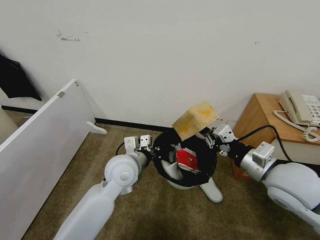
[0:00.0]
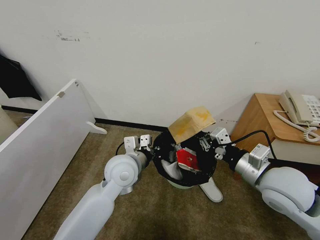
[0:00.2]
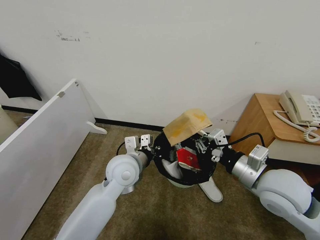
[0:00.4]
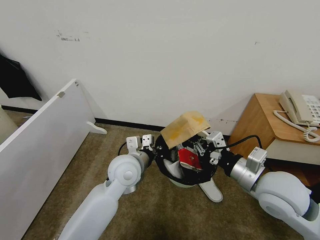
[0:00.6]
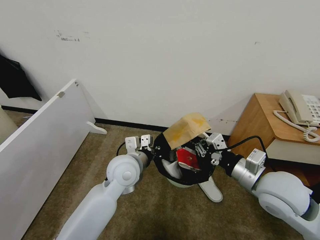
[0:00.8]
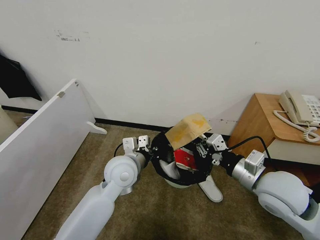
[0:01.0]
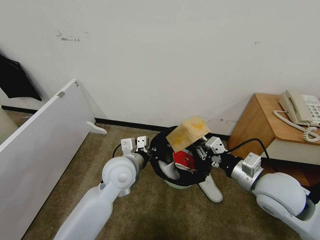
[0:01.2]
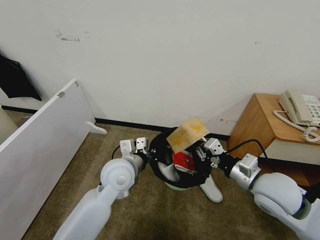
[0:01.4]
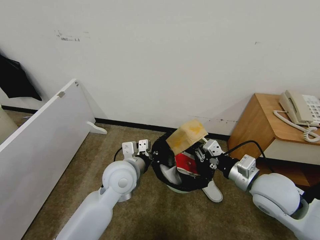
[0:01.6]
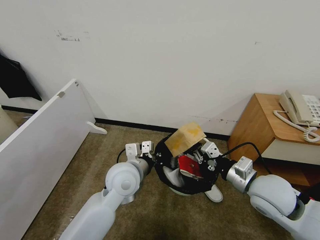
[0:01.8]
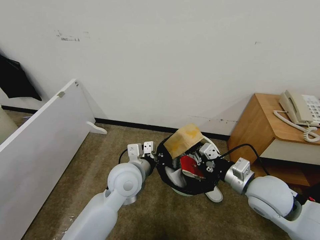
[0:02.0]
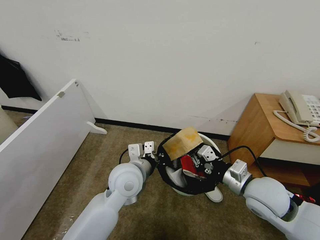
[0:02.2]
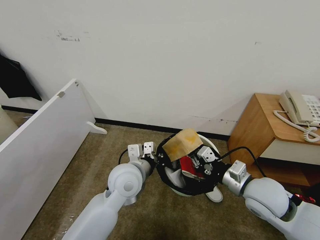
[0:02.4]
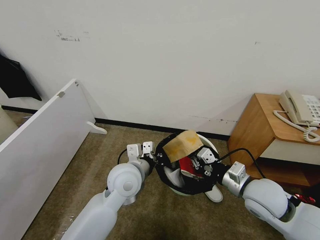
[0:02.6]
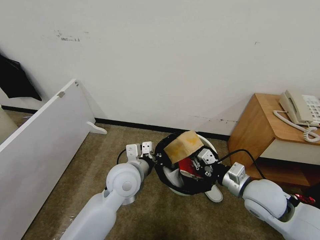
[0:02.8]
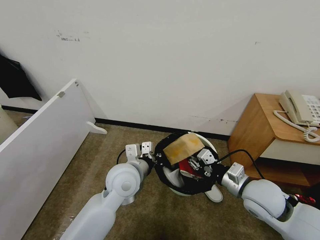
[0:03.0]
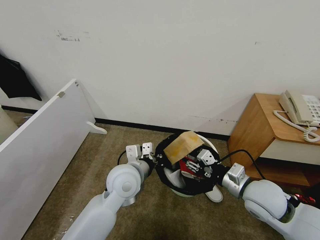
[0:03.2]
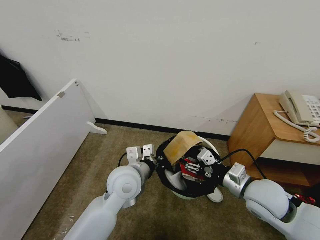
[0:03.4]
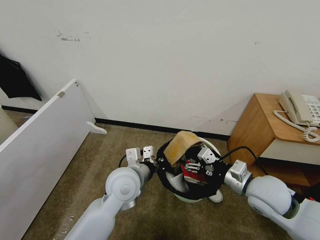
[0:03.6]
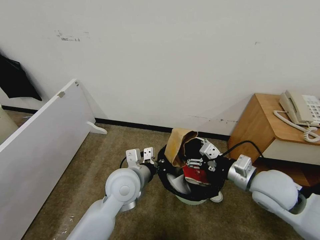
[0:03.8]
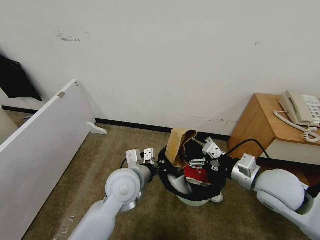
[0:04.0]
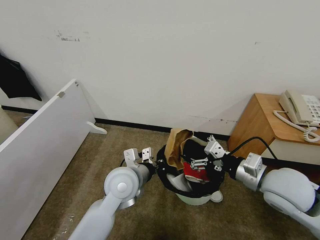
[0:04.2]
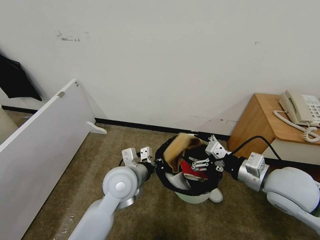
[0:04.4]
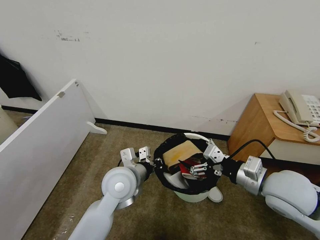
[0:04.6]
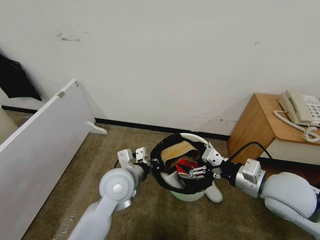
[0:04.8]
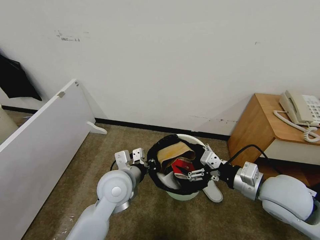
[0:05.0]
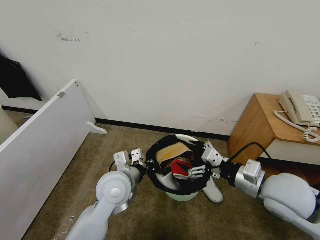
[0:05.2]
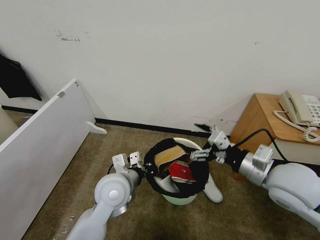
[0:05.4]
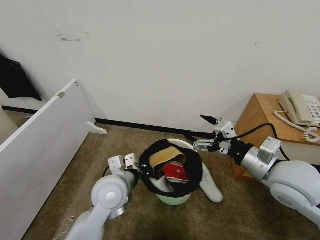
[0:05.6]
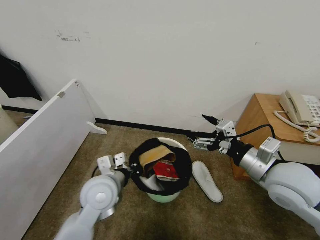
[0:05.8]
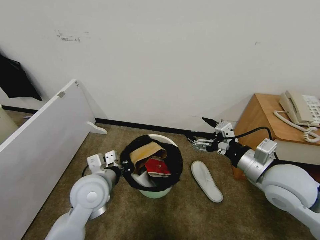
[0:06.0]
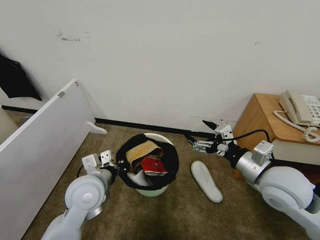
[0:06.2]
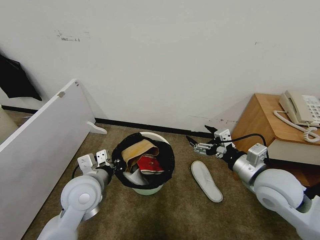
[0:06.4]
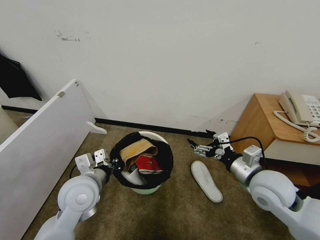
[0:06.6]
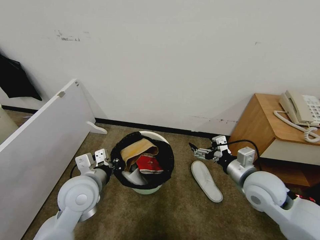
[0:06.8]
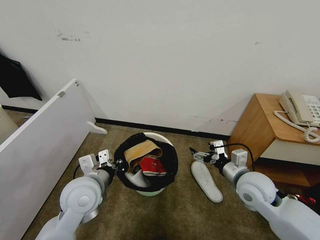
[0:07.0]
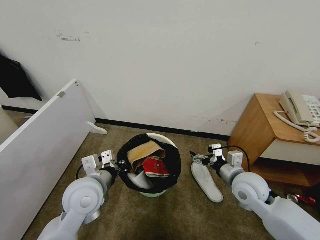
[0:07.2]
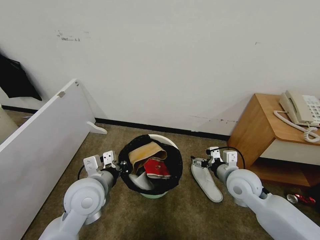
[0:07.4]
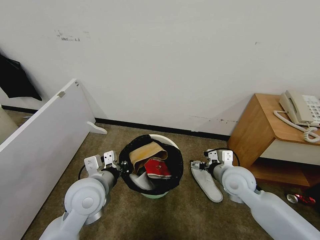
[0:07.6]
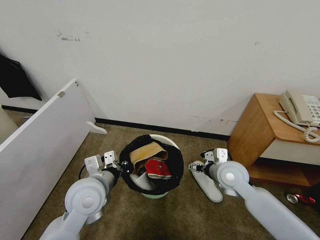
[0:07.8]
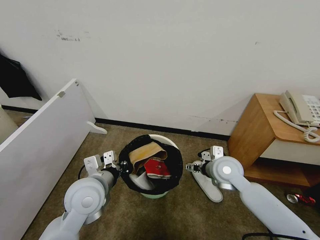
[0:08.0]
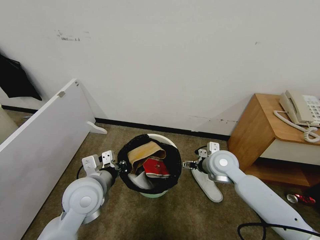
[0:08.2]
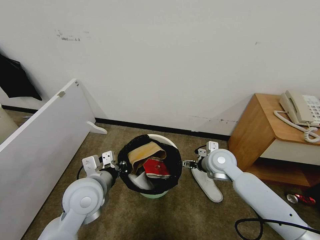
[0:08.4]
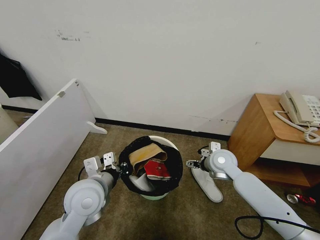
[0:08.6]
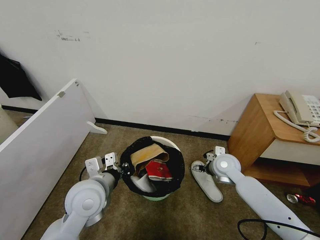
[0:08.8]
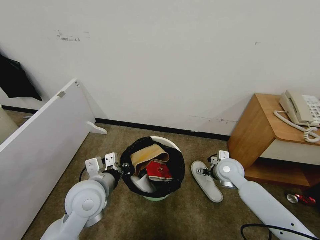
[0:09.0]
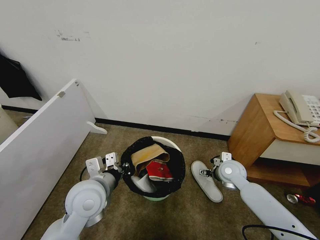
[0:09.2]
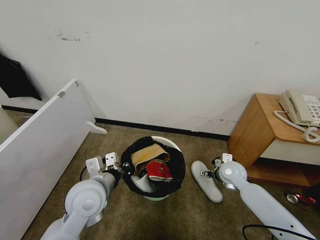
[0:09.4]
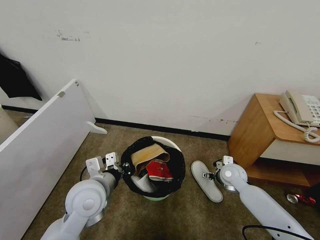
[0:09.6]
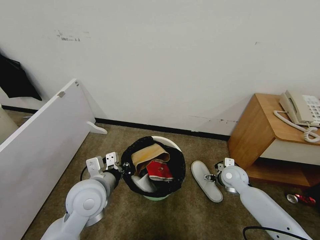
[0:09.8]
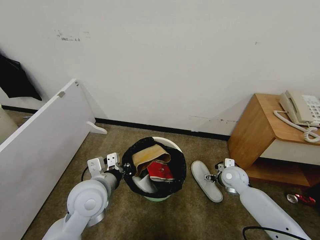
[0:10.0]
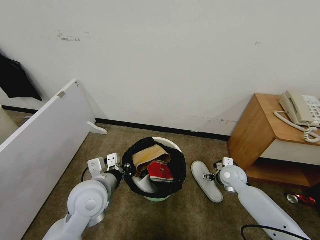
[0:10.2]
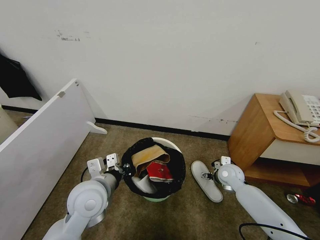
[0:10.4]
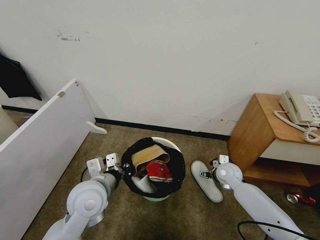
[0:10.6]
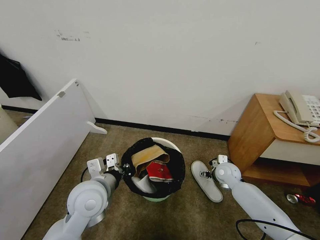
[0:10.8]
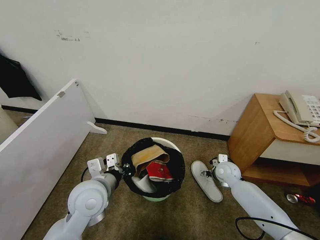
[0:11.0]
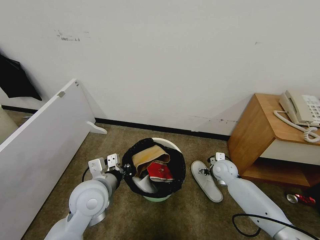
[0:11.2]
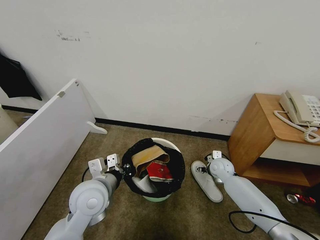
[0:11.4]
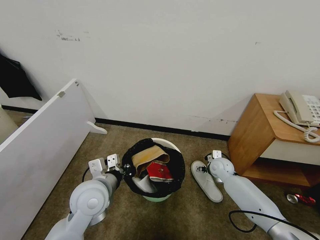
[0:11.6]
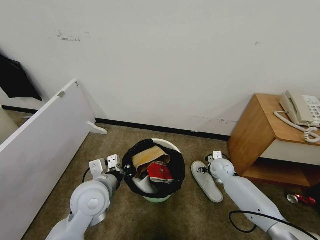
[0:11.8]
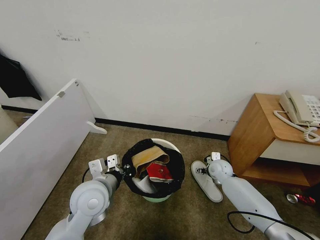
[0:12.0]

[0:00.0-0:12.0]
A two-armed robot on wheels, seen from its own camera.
Task of the whole recording: Pick up the trash bin, then pick up the garbage from the floor and place it into the trash bin.
0:00.0 to 0:01.6: The right gripper changes place by some 5 cm.
0:01.6 to 0:03.0: The grippers make only small movements.
0:03.0 to 0:04.4: The right gripper shifts about 10 cm upward, and opens up.
0:04.4 to 0:06.0: The left gripper goes roughly 10 cm to the left.
0:06.0 to 0:07.6: The right gripper is displaced downward and forward by approximately 15 cm.
0:07.6 to 0:09.0: The right gripper shifts roughly 10 cm forward and downward.
0:09.0 to 0:10.4: The right gripper shifts about 5 cm downward.
0:10.4 to 0:12.0: The right gripper moves roughly 5 cm.

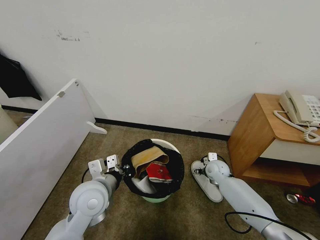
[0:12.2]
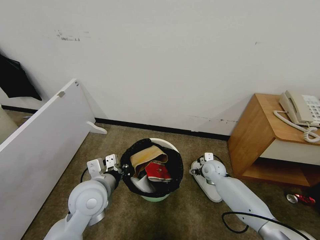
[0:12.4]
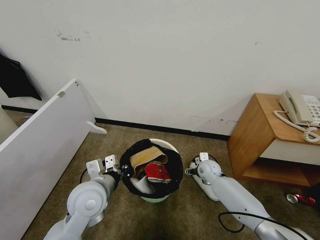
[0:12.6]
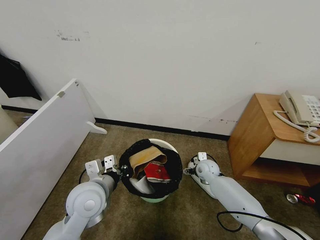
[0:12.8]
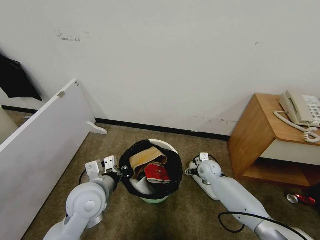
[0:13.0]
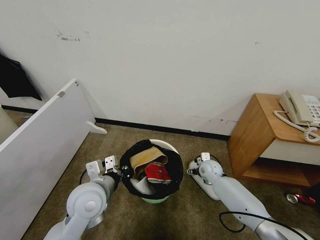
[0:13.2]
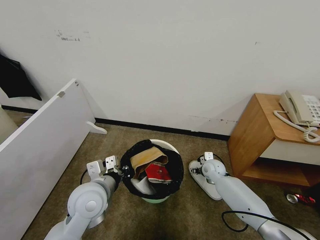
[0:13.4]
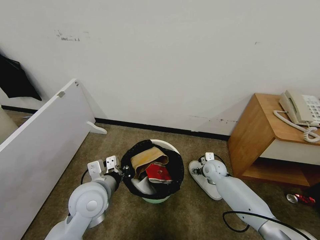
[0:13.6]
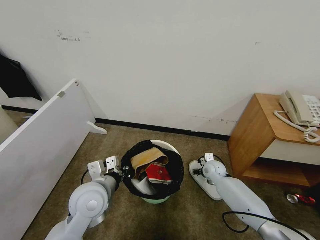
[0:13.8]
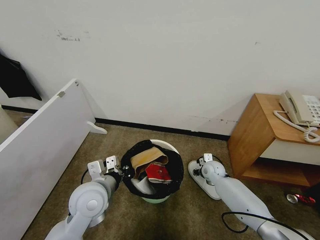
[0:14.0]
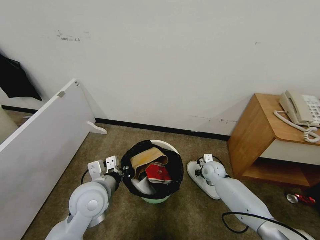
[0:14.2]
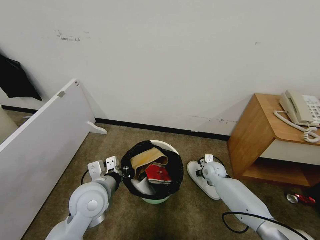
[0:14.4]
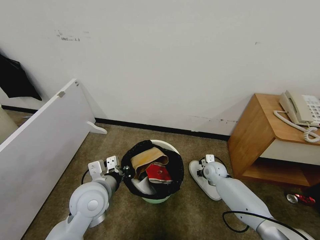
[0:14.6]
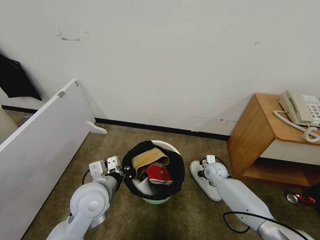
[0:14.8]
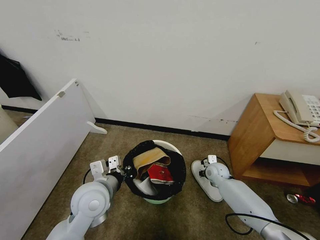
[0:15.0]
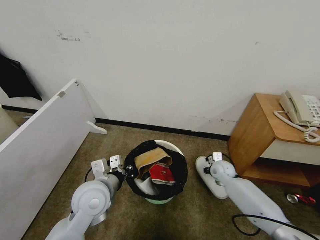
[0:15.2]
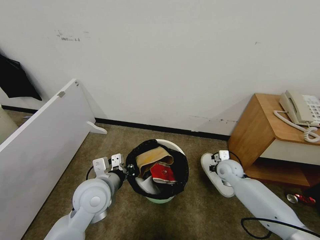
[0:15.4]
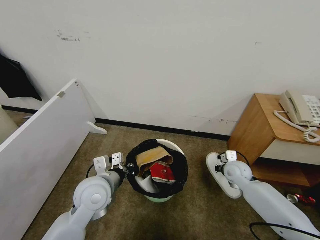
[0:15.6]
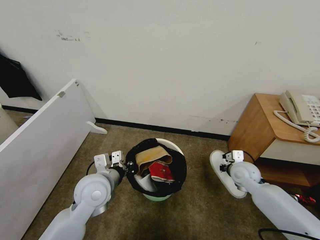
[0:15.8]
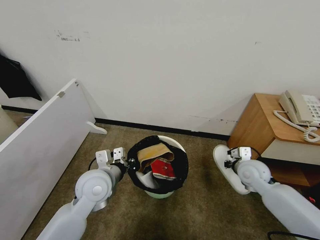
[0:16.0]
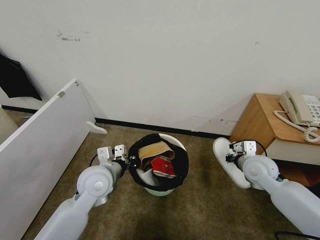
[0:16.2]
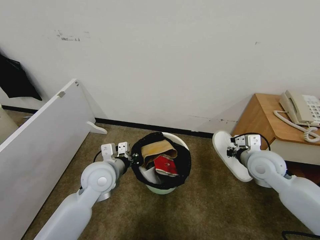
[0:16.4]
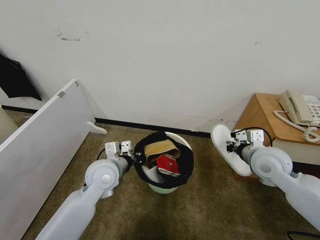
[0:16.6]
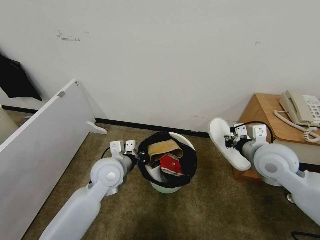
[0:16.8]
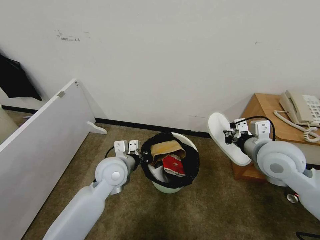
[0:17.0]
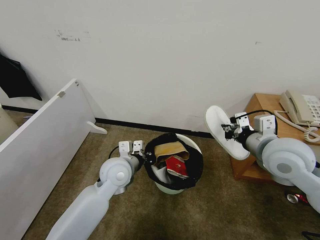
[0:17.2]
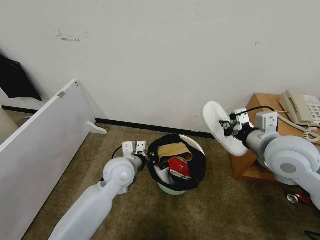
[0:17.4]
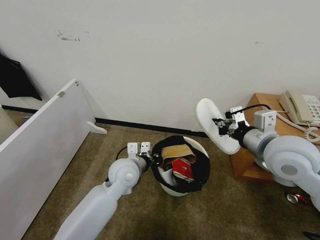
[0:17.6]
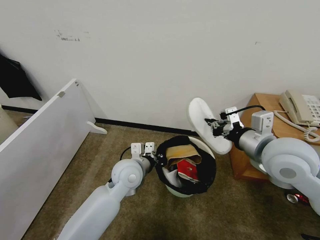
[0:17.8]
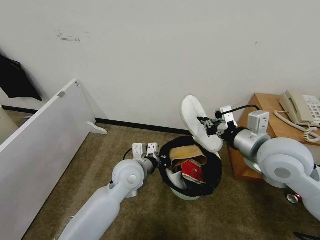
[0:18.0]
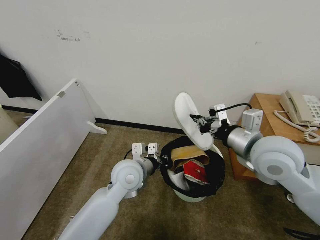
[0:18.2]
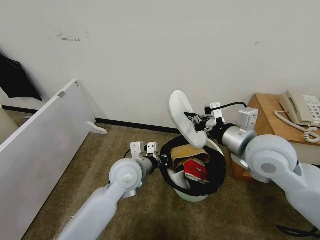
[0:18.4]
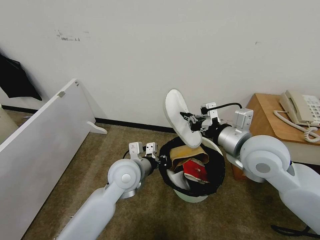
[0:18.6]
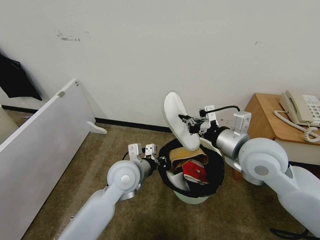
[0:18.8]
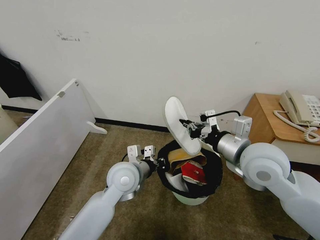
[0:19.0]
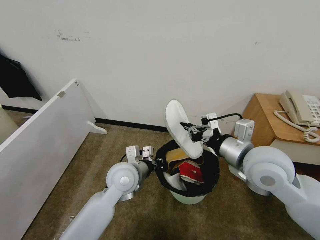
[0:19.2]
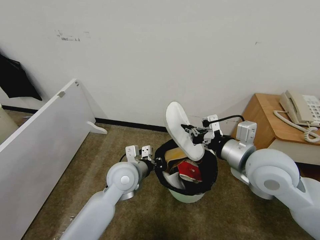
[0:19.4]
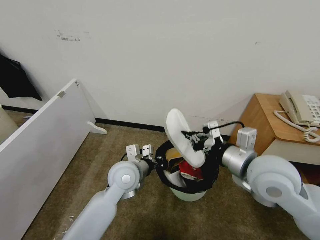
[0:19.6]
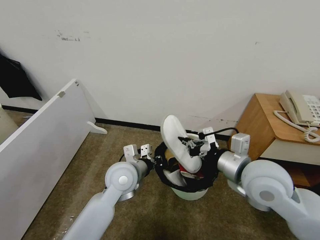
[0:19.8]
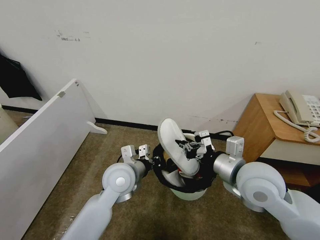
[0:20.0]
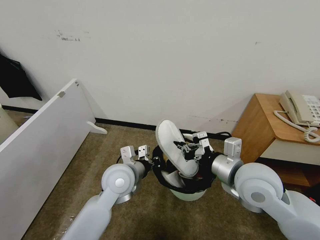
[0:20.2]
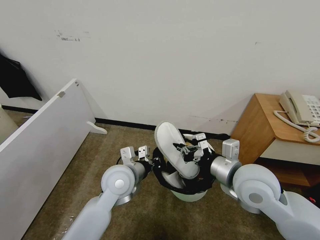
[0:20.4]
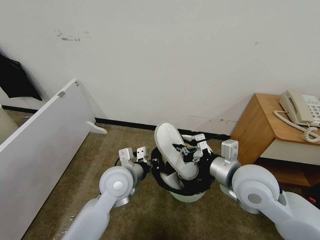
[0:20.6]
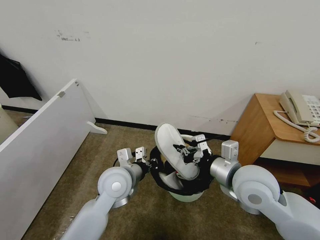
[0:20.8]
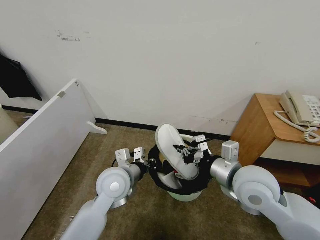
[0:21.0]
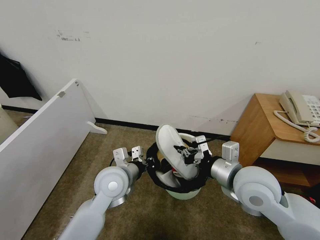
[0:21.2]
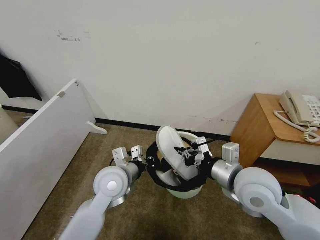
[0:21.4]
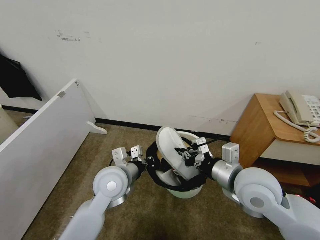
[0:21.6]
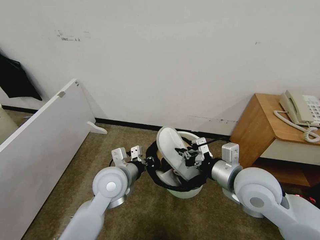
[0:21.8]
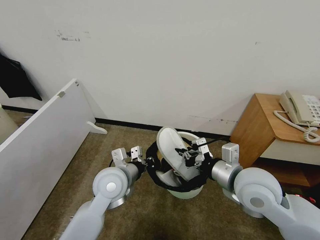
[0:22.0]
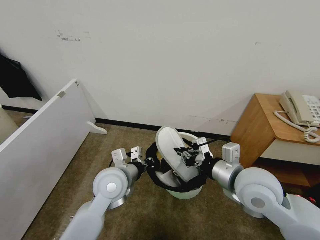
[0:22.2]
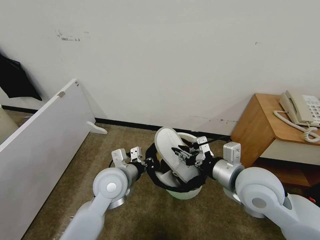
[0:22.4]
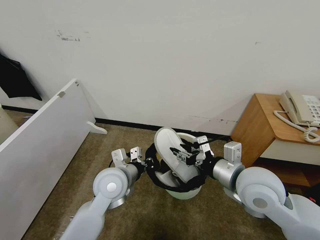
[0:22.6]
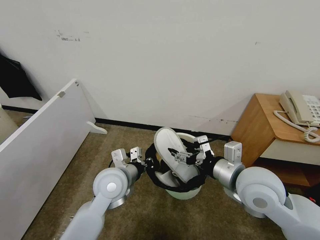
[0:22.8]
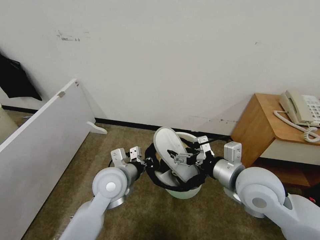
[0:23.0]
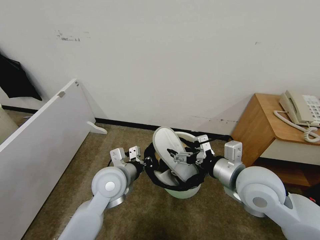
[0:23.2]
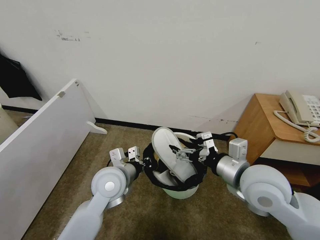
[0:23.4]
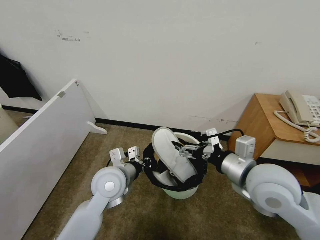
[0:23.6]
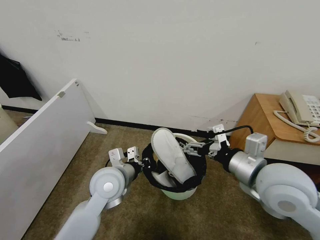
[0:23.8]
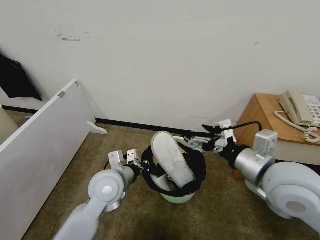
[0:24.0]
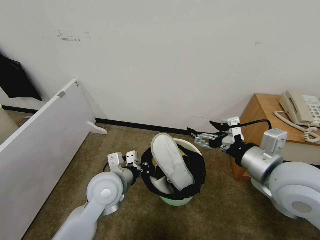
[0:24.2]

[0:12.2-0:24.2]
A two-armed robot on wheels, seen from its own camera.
Task of the whole recording: Pick up the trash bin, then pick up the garbage from the floor and place it into the trash bin.
0:12.2 to 0:13.8: There are only small adjustments of the grippers.
0:13.8 to 0:15.2: The right gripper closes its fingers.
0:15.2 to 0:16.6: The right gripper shifts approximately 25 cm upward and backward; the left gripper goes about 5 cm forward.
0:16.6 to 0:18.2: The right gripper is displaced upward and to the left by roughly 10 cm. The left gripper goes approximately 10 cm to the right.
0:18.2 to 0:19.8: The right gripper ends up about 5 cm from where it was.
0:19.8 to 0:21.2: The grippers move only a little.
0:21.2 to 0:22.6: The right gripper opens up.
0:22.6 to 0:24.2: The right gripper heads upward, covering about 5 cm, and opens up.
